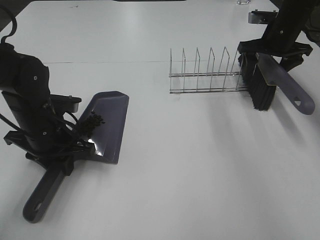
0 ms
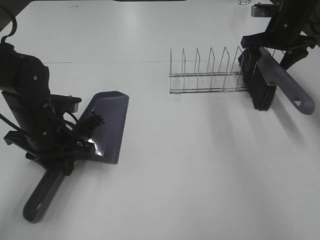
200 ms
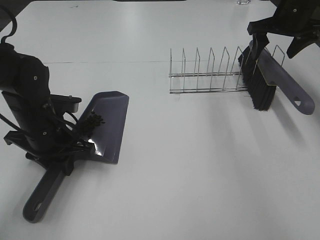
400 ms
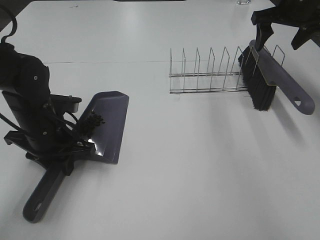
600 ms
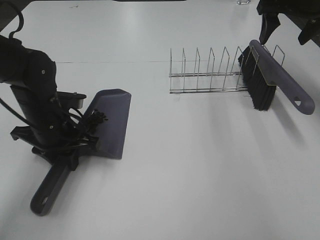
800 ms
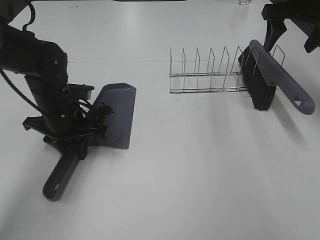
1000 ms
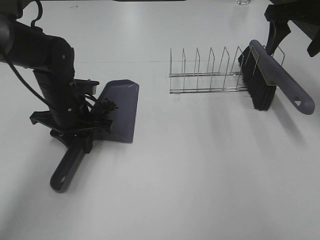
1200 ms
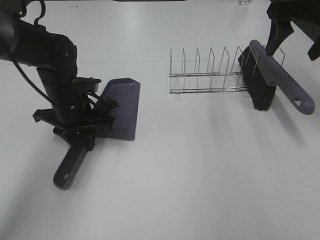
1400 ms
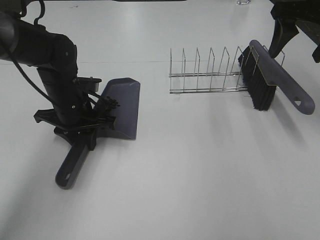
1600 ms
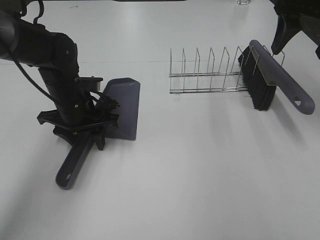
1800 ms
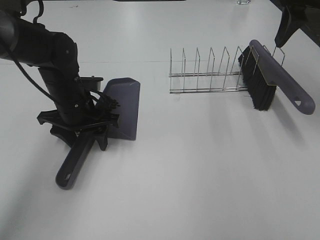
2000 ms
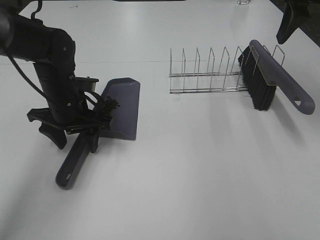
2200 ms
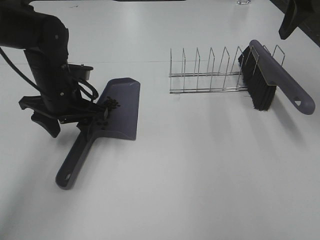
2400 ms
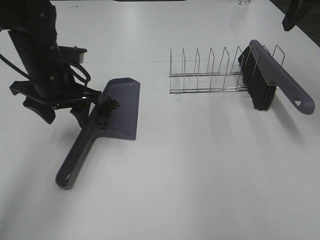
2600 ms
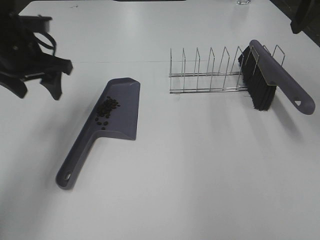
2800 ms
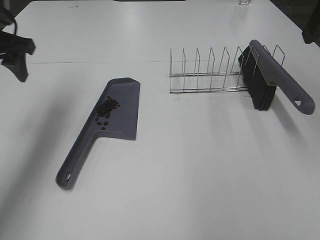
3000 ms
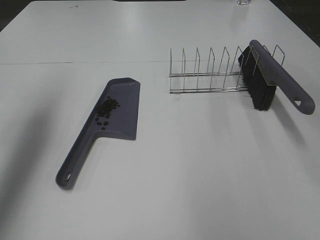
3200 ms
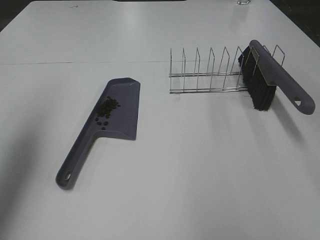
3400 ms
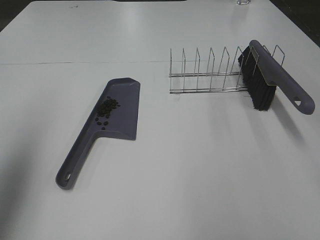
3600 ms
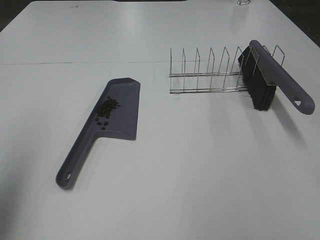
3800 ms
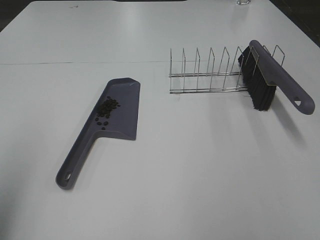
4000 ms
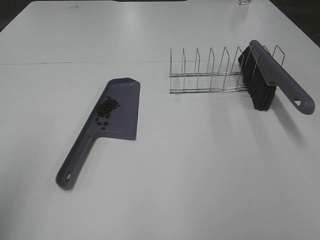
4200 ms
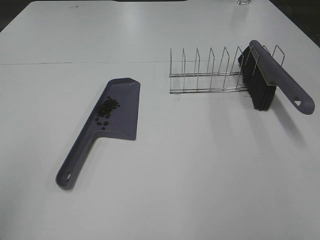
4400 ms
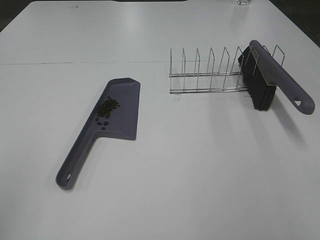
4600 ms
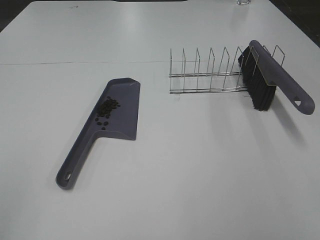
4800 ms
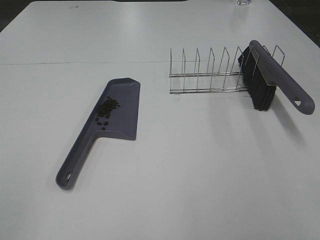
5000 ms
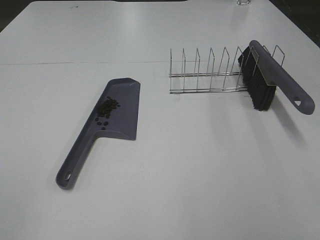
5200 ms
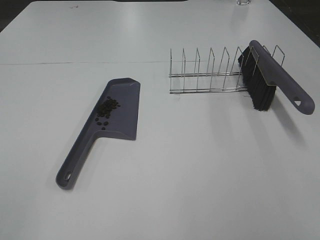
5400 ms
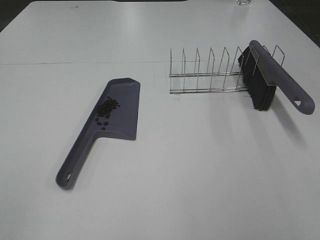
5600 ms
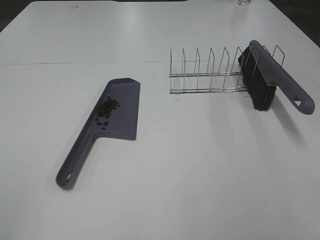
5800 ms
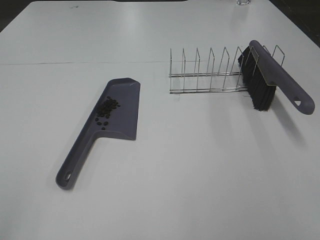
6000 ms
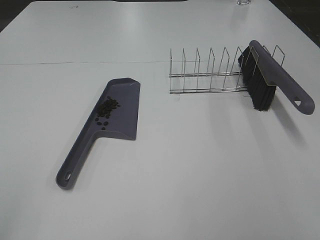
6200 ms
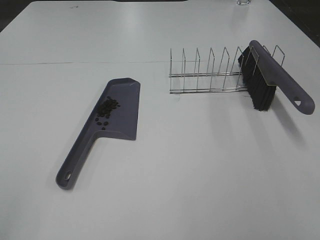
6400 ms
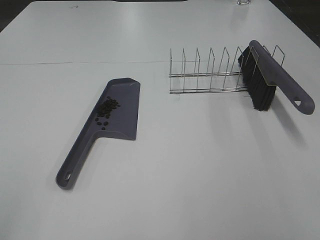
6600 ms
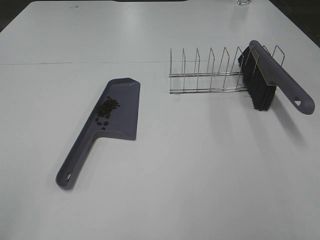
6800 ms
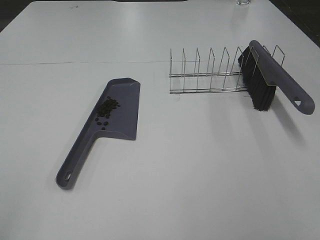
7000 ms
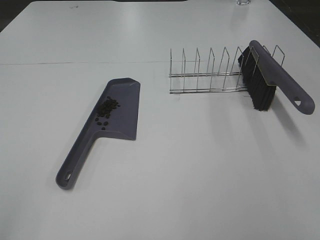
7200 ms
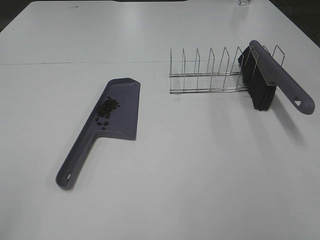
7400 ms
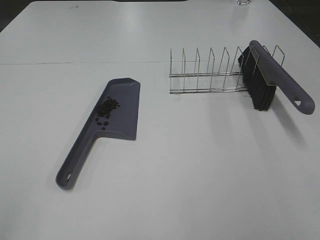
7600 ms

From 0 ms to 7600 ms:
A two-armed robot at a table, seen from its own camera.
Task of the whole recording: Sweep Coffee Bean.
Step, from 400 ms to 2000 ms: Left hand:place the dustpan on the table.
From 0 ms to 1600 ms: The right gripper is displaced upward and backward by some 15 cm. Meanwhile the left gripper travels forward by roughly 5 cm.
From 1600 ms to 3000 ms: The right gripper heads backward and upward, covering some 10 cm; the left gripper moves upward and to the left, about 20 cm, and opens up.
From 3000 ms to 4600 ms: The left gripper goes roughly 35 cm backward.
From 6000 ms to 7600 ms: Neither gripper changes place.

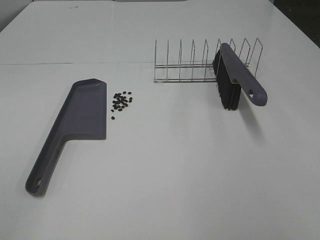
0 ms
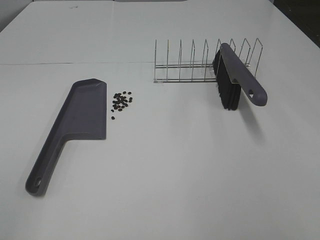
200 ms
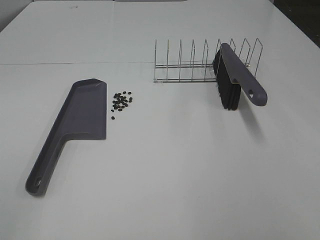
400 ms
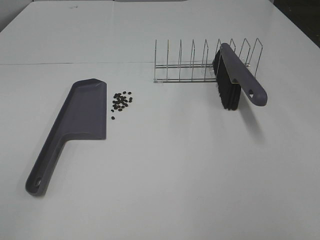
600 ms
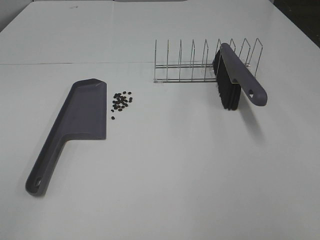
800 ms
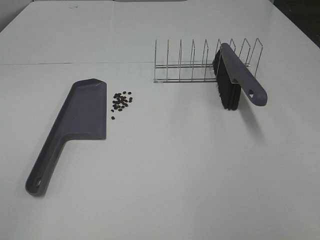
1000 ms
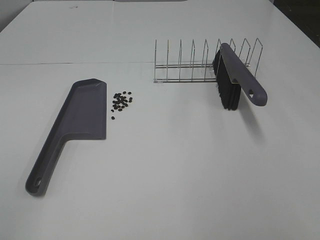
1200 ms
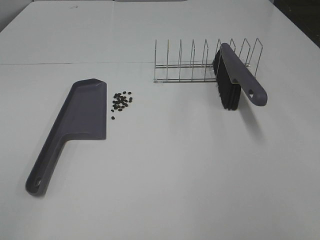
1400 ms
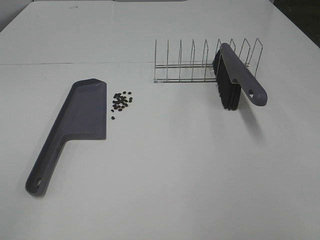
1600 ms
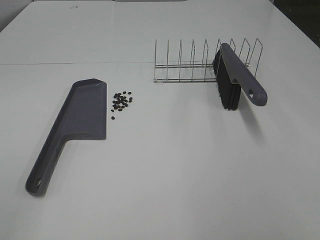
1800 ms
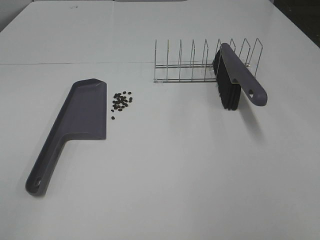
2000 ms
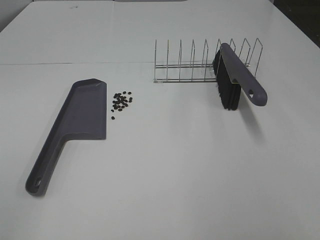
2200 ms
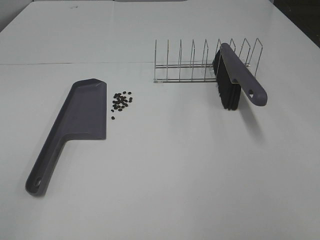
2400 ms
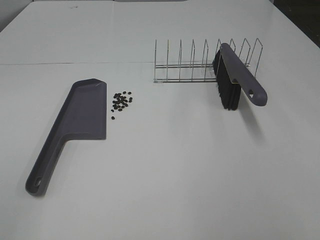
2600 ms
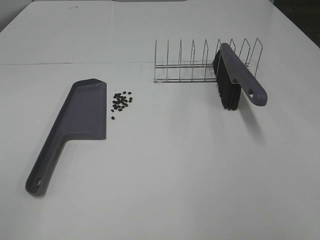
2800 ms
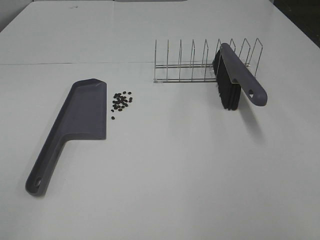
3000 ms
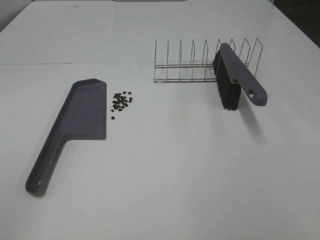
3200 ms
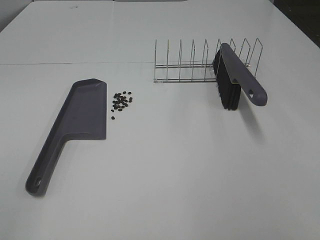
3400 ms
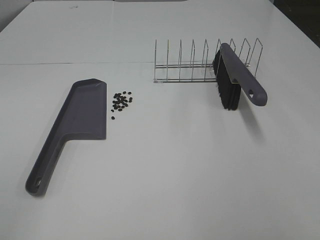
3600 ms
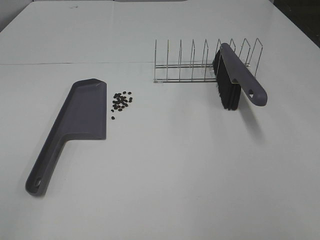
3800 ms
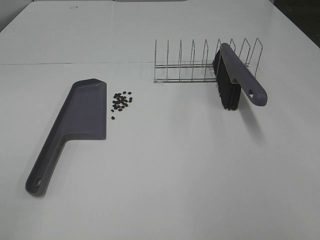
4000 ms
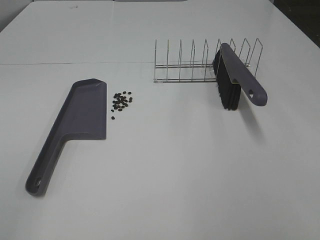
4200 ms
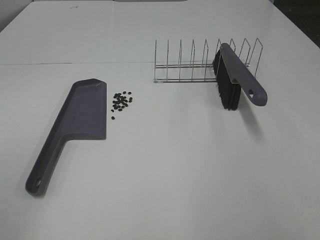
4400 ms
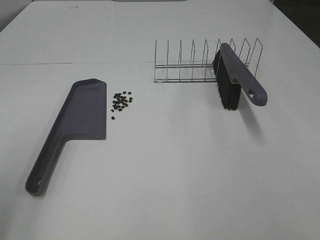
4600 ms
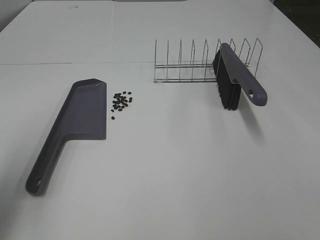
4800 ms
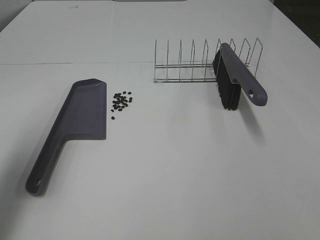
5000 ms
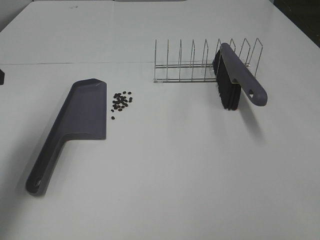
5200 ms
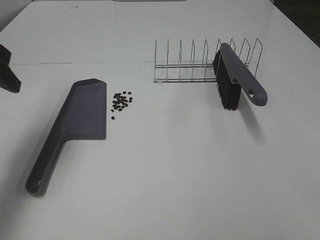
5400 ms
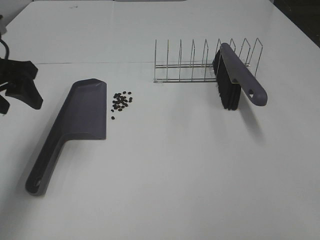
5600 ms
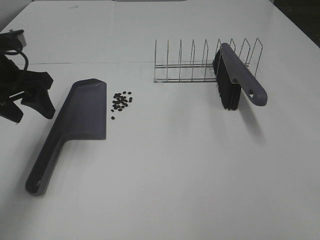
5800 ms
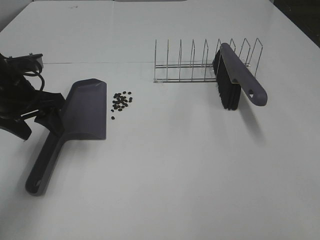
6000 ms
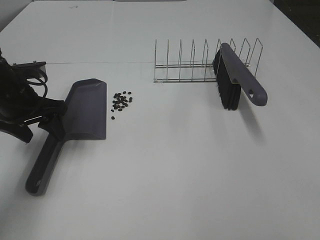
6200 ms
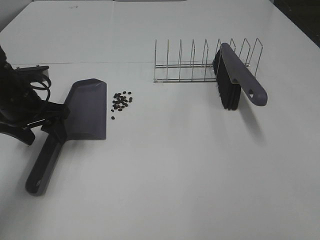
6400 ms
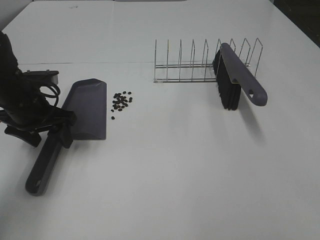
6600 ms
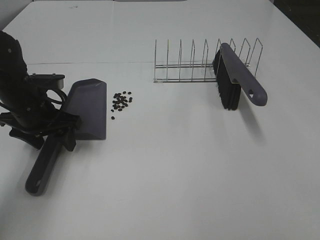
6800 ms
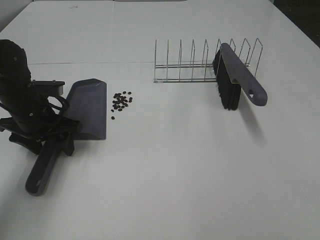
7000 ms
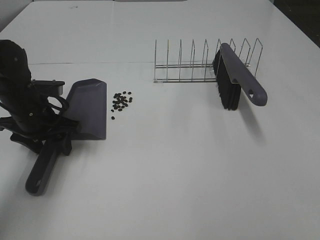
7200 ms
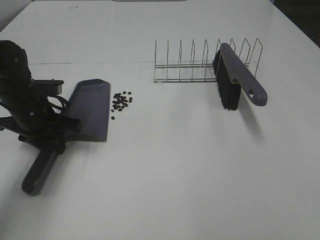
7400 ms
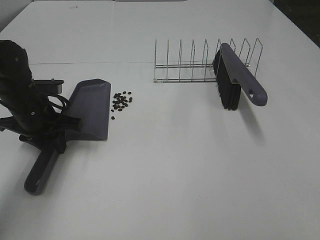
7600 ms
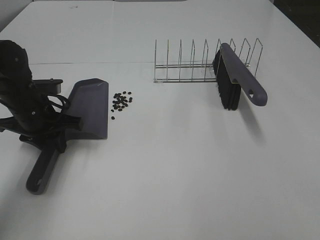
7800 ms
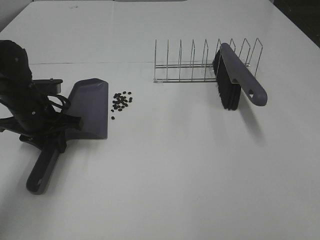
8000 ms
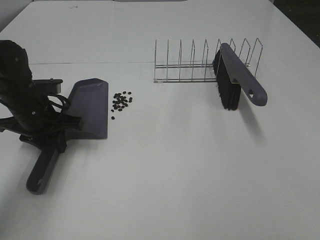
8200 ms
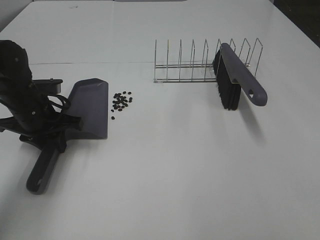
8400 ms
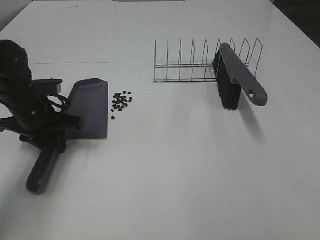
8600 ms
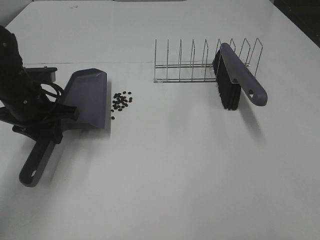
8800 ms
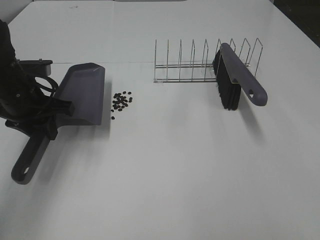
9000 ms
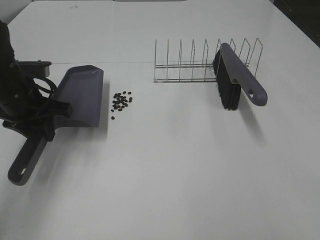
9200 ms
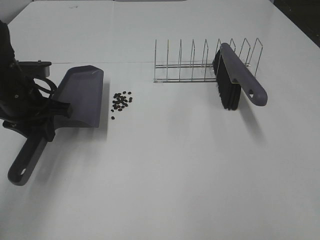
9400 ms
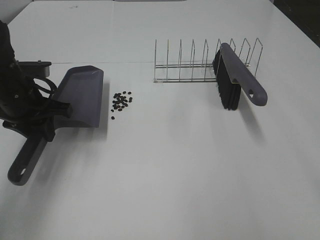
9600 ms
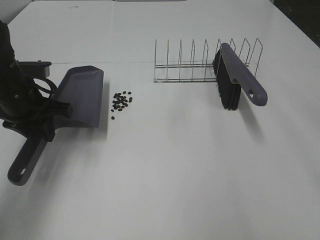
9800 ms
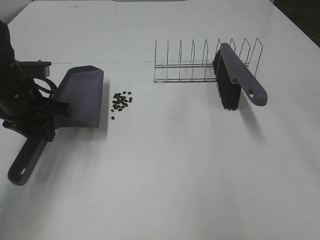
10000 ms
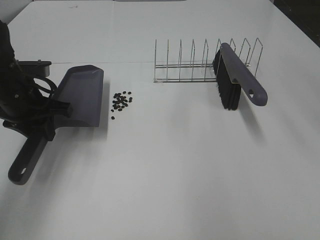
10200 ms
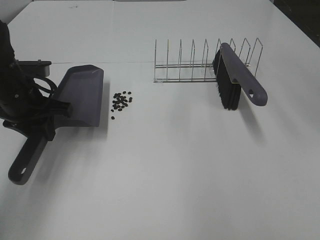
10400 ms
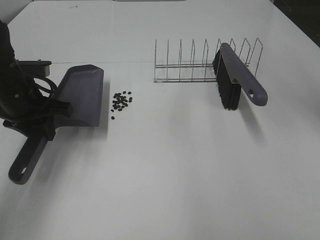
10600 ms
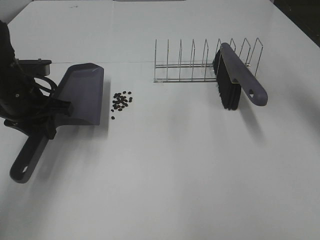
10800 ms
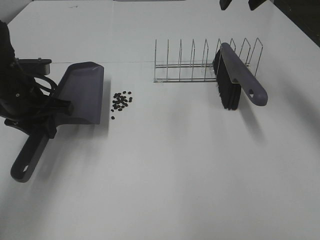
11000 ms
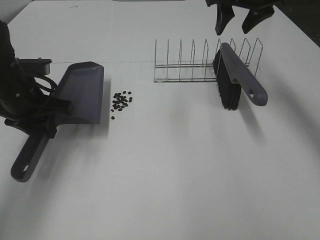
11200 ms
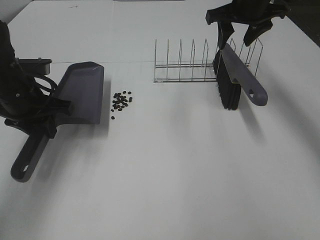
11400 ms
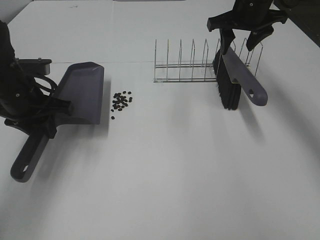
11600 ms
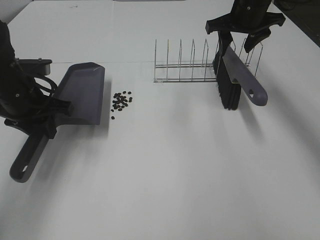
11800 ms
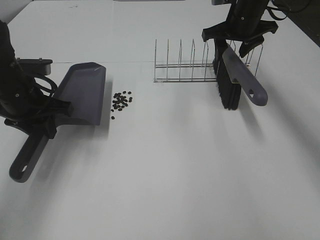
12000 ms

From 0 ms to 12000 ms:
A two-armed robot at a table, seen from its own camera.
Task of the whole recording: Sweep Coffee Bean.
Step, from 0 ms to 7600 ms: Left hand: grab the dustpan.
From 0 ms to 3000 ms: Both grippers stay put.
From 4400 ms to 6000 ms: The left gripper moves forward and downward, roughly 35 cm.
From 6000 ms to 7600 ms: The left gripper heads downward, covering approximately 5 cm, and closes up.
From 7600 ms to 9000 ms: The left gripper shifts some 5 cm upward.
From 10400 ms to 12000 ms: The right gripper heads downward and forward, covering approximately 25 cm.

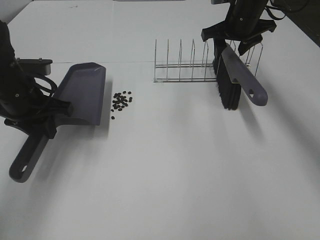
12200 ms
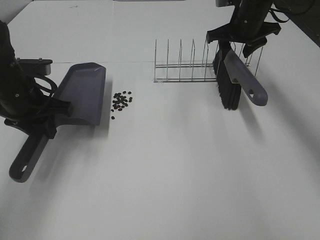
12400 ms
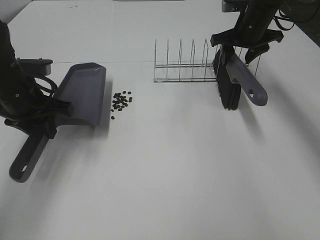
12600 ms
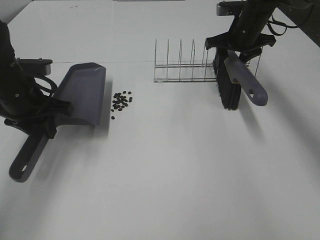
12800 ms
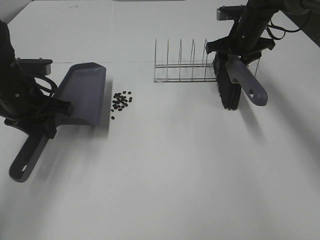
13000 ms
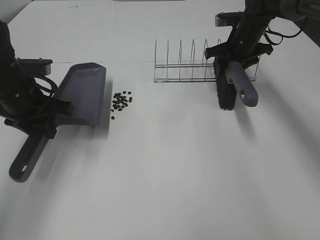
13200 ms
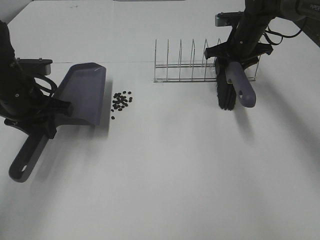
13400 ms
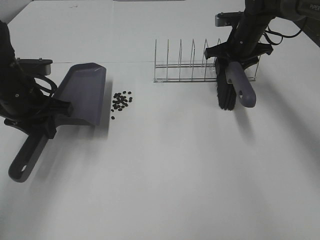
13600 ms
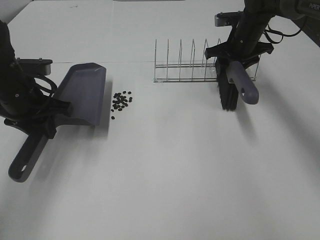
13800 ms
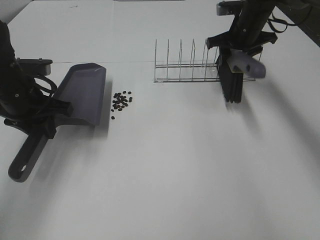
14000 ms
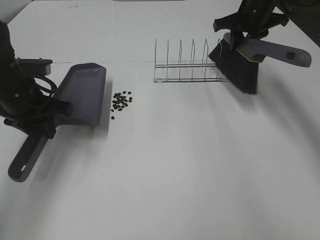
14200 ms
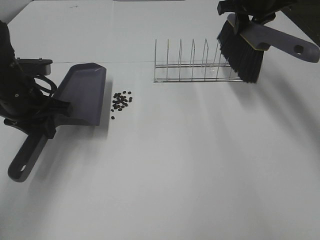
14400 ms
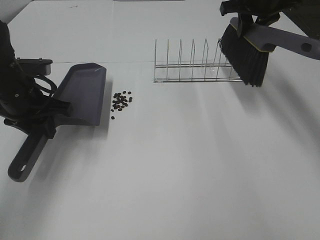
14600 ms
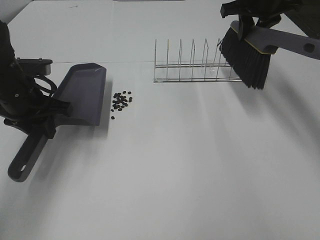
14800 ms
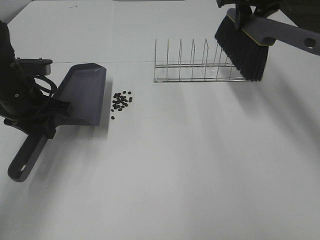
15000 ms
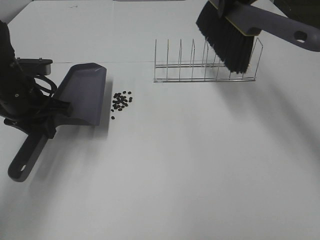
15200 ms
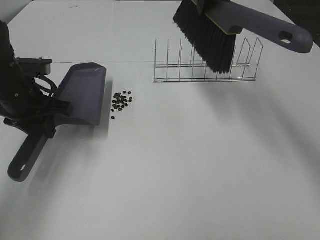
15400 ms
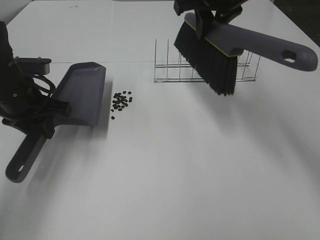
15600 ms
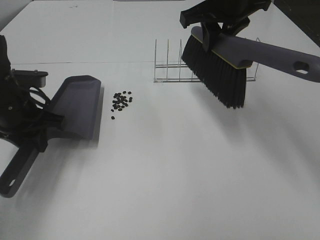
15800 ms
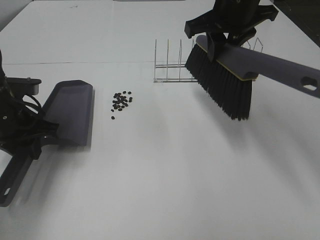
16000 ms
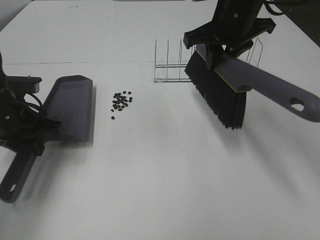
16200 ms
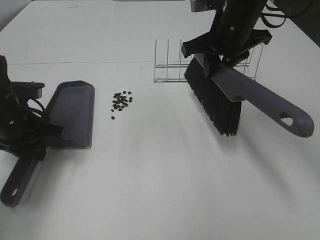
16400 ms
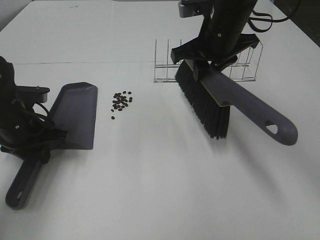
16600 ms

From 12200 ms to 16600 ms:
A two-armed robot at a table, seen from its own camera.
Task of the whole recording: Sweep Coffee Bean.
From 12200 ms to 13600 ms: The right gripper goes approximately 5 cm downward.
From 13600 ms to 15200 ms: The right gripper is displaced upward by approximately 20 cm, and closes.
From 15200 ms to 16600 ms: The right gripper is displaced downward and backward by some 10 cm. The left gripper shifts by some 5 cm.
